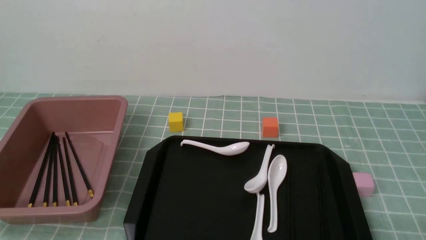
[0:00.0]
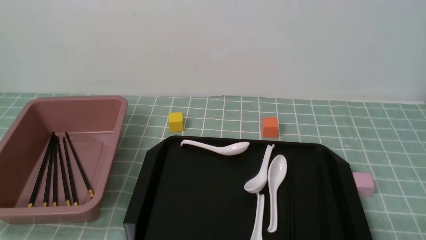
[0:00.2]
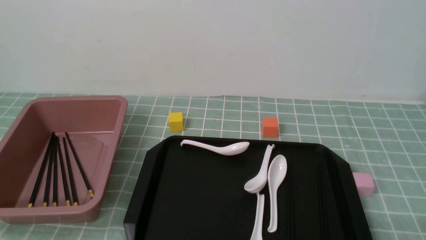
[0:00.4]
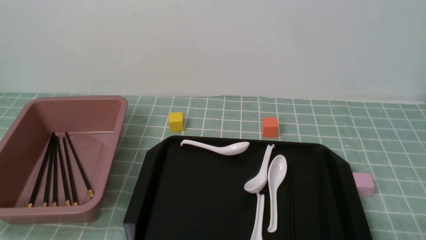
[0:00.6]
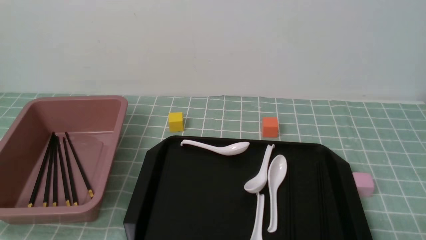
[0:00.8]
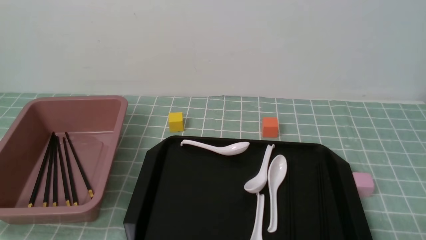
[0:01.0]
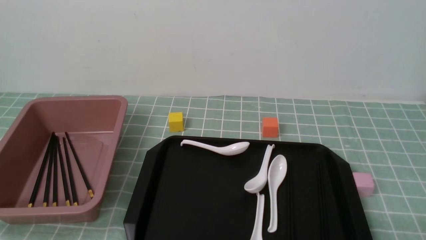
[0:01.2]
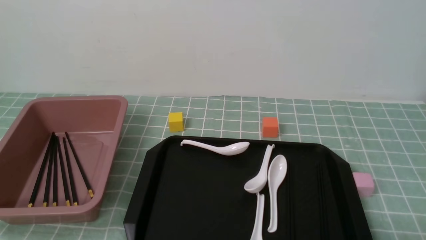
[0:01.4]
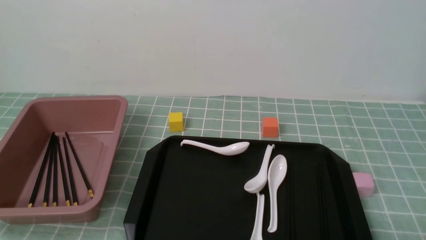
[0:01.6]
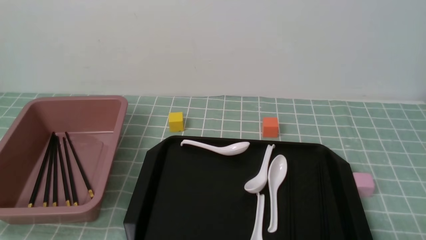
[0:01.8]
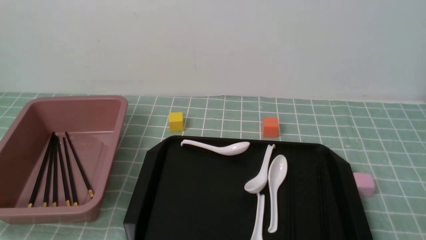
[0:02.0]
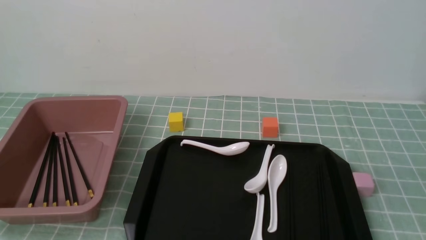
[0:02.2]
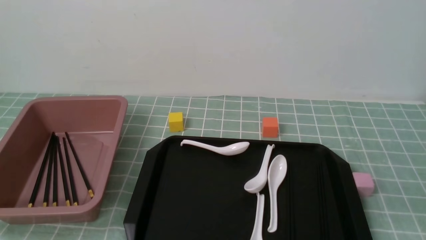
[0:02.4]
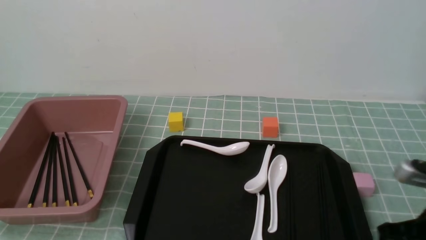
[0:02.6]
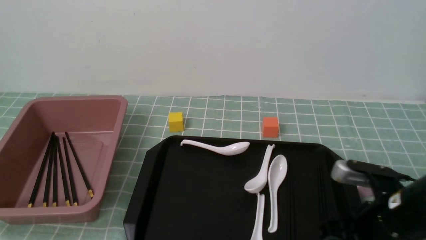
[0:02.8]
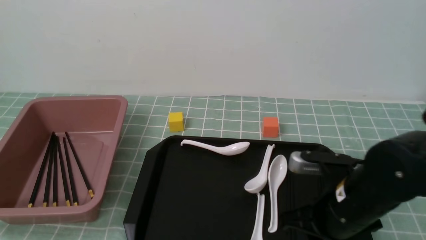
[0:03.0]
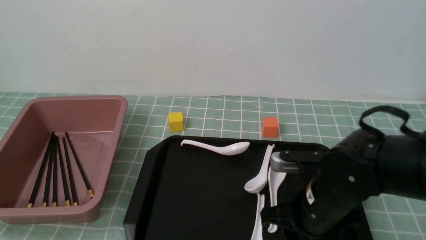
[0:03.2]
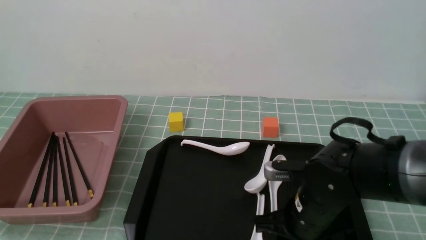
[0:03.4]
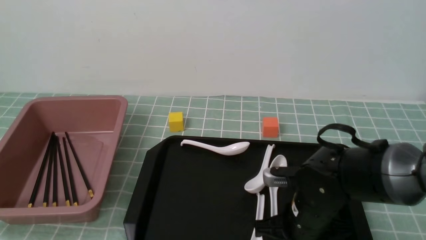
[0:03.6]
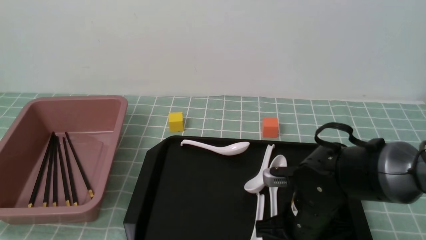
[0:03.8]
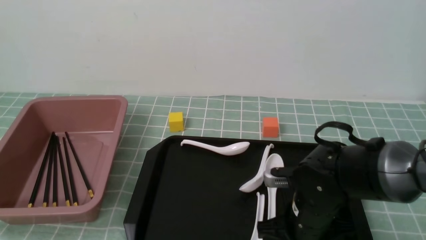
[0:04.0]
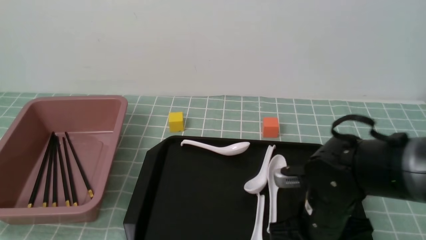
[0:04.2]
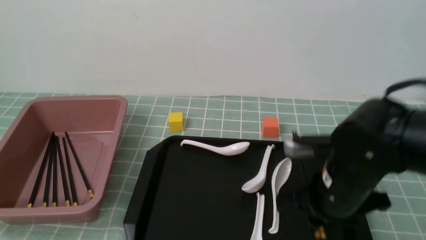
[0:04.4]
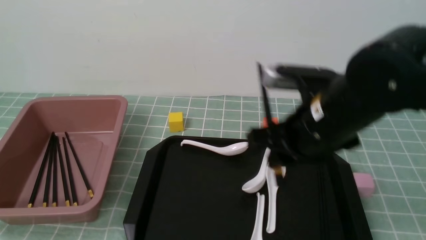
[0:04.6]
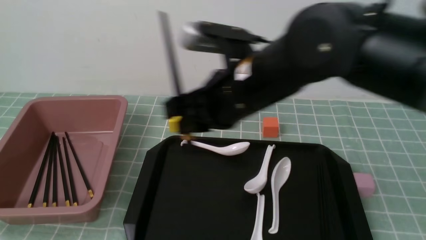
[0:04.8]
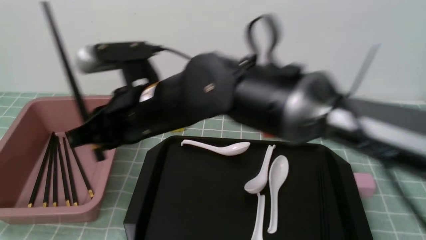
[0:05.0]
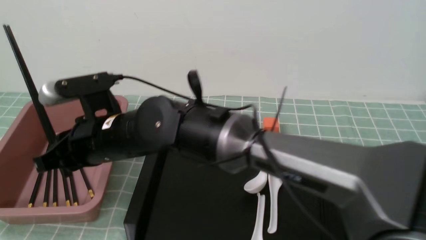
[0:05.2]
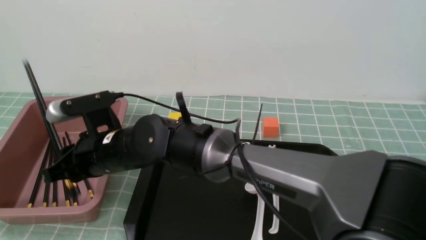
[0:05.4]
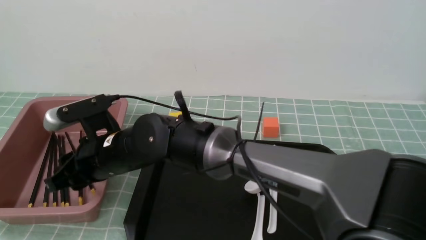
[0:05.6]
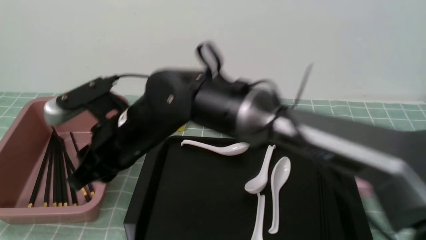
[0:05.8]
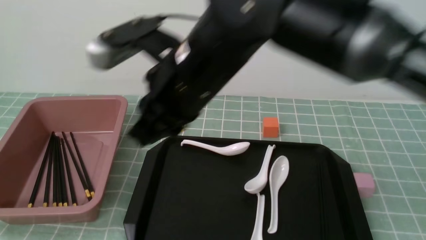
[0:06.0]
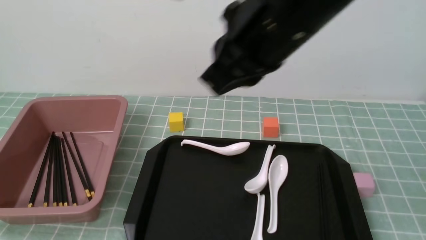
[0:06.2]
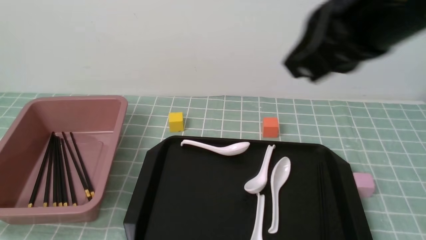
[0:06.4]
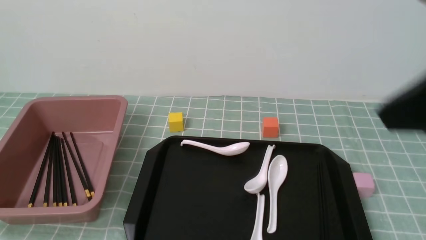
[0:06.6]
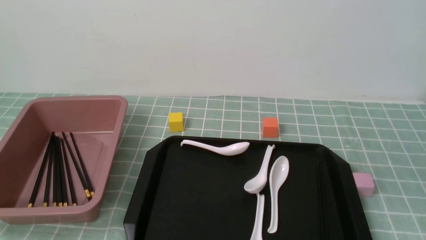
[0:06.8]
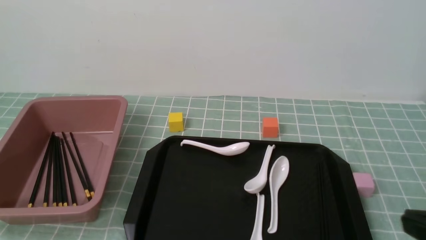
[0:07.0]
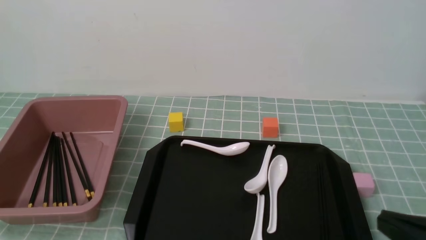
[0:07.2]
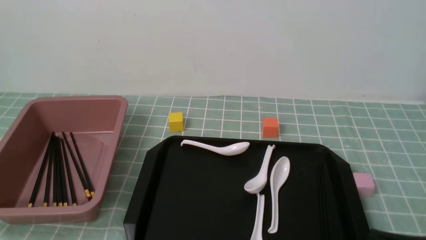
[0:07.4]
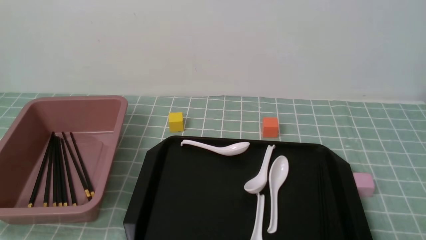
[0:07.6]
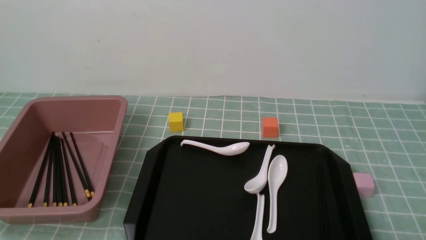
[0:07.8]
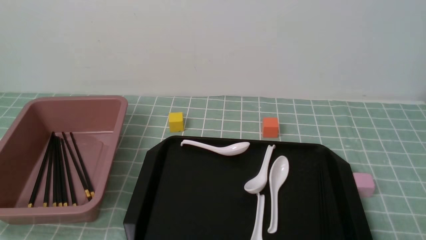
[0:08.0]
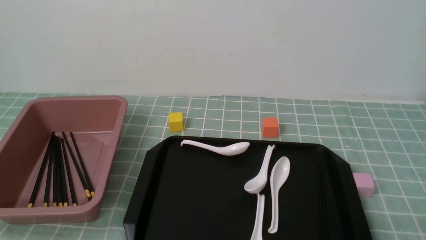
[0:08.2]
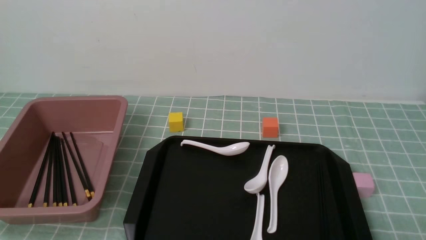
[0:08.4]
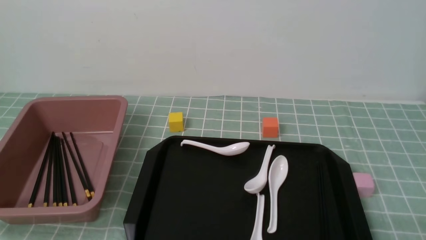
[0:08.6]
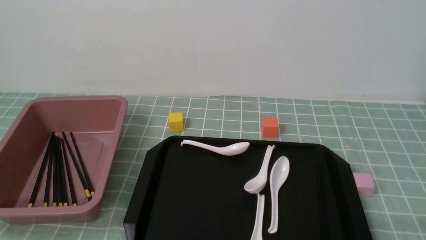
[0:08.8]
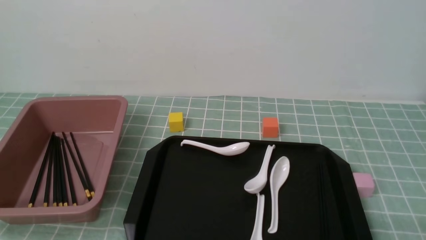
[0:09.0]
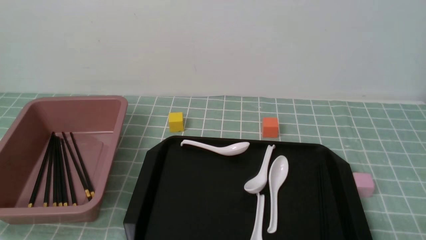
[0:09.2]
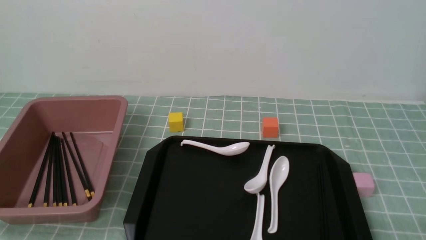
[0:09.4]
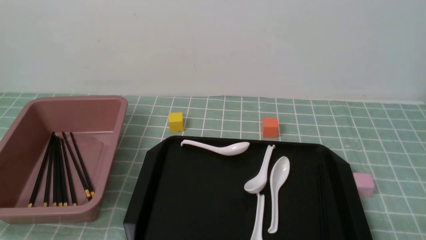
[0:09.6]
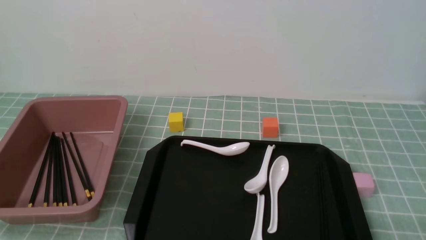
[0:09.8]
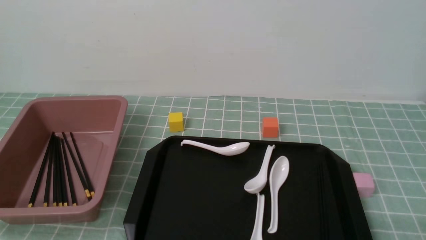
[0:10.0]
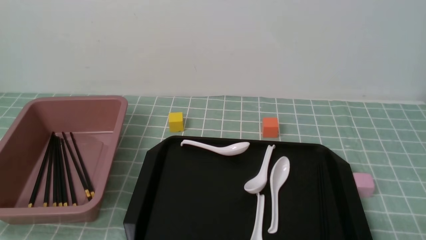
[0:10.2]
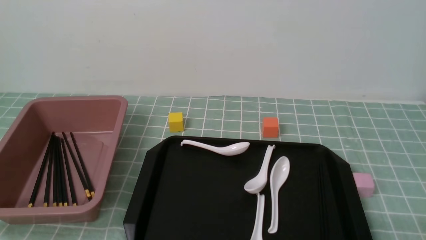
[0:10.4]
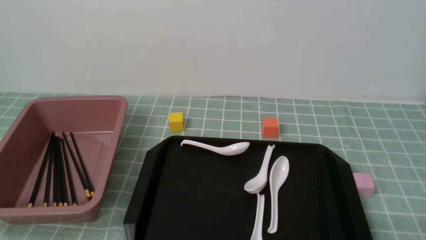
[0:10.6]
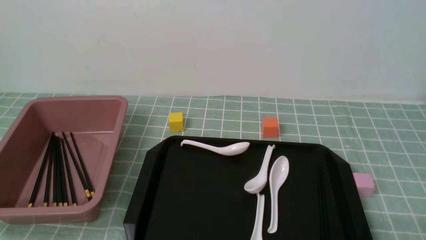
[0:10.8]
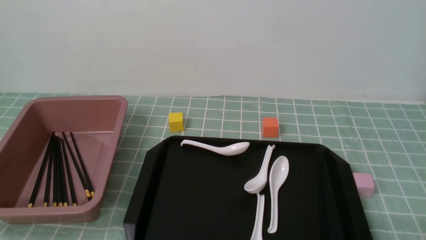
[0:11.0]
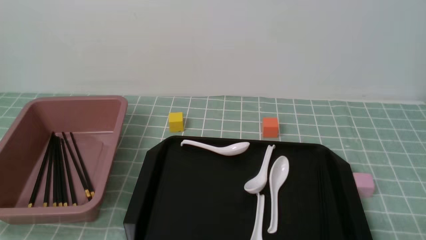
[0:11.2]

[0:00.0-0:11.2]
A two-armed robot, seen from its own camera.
Step, 0:00.0 to 0:04.4: use the right arm to grab a pair of chopsticks.
Step, 0:04.6 to 0:05.8: use the right arm to put the chopsticks into the lunch box.
0:01.6 to 0:03.2: The right gripper shifts about 25 cm forward and to the left, and closes and opens again.
0:03.2 to 0:04.8: The right gripper shifts some 20 cm upward and to the left, and closes.
0:04.8 to 0:06.4: The right gripper goes roughly 20 cm upward, to the right and backward, and closes its fingers.
0:06.4 to 0:08.0: The right gripper heads downward, to the right and backward, covering approximately 30 cm.
0:09.6 to 0:11.2: Both grippers stay about where they are.
